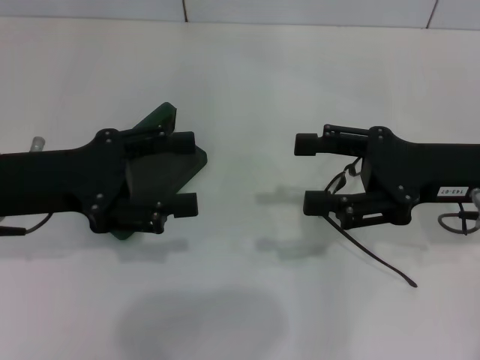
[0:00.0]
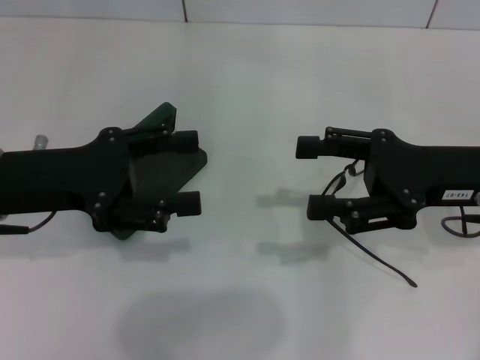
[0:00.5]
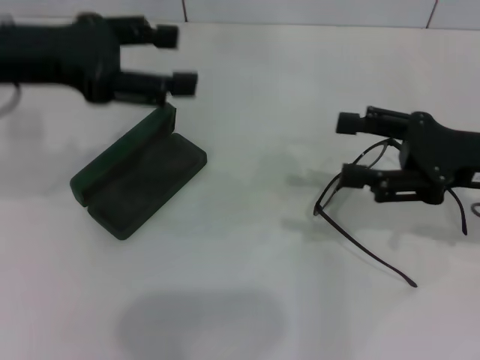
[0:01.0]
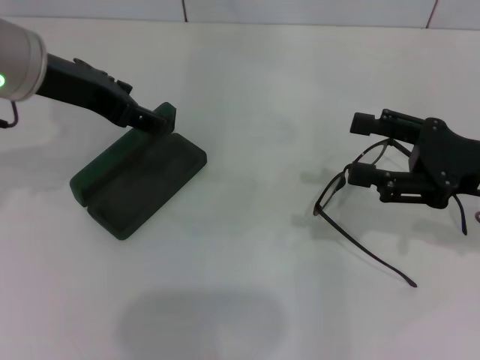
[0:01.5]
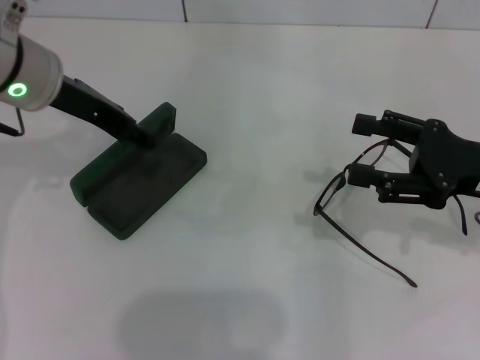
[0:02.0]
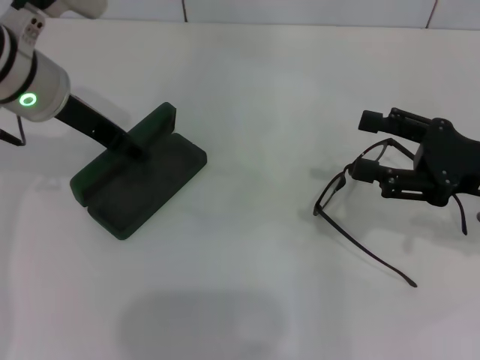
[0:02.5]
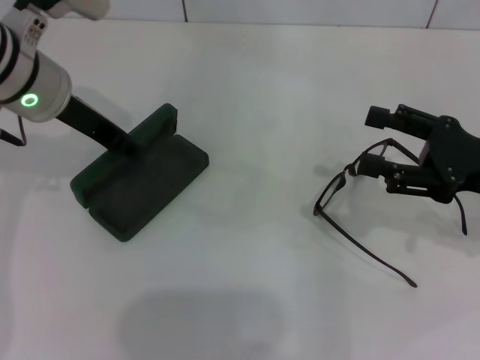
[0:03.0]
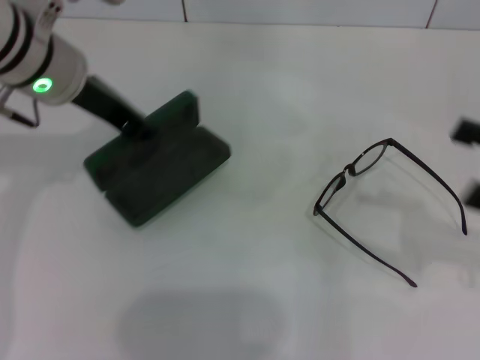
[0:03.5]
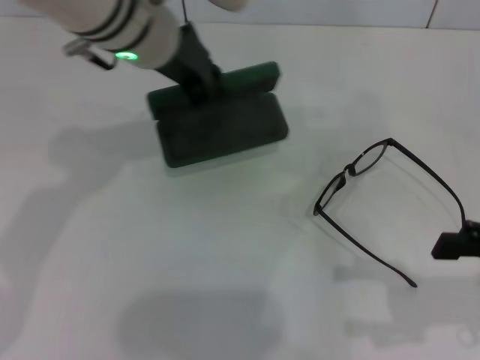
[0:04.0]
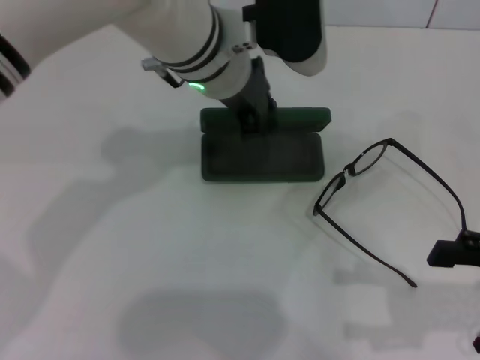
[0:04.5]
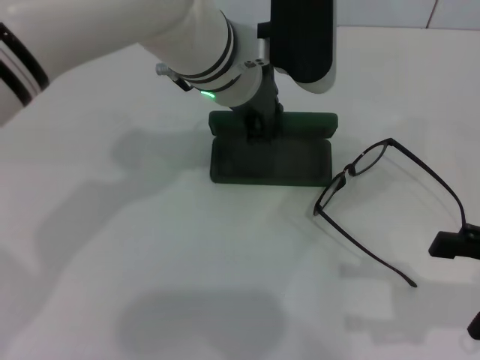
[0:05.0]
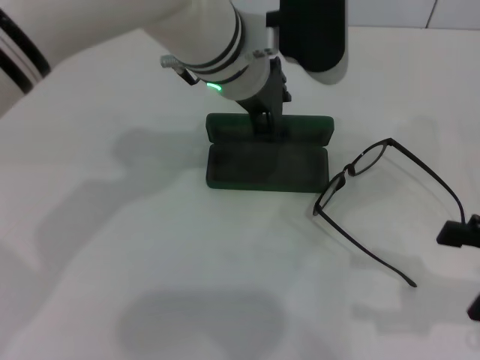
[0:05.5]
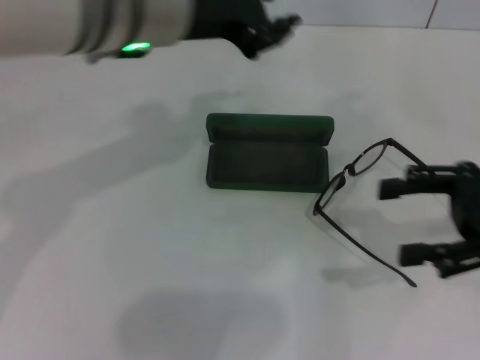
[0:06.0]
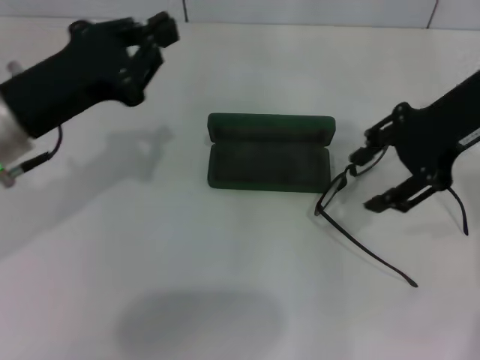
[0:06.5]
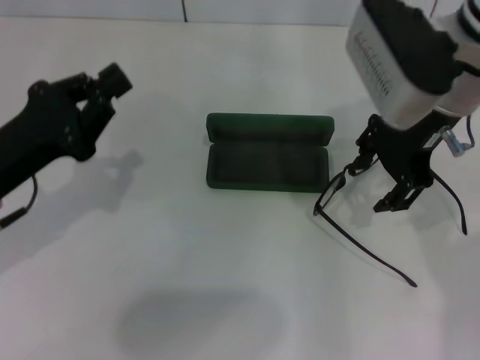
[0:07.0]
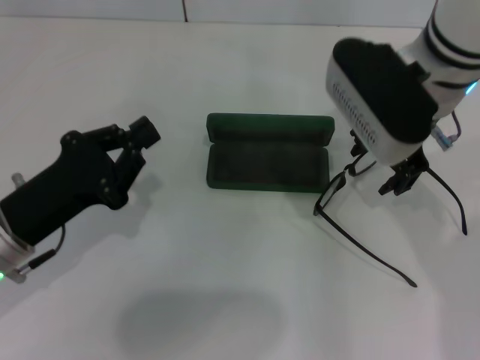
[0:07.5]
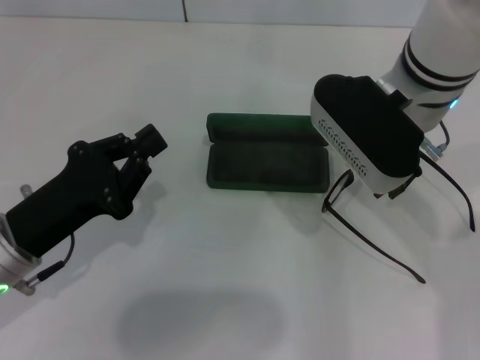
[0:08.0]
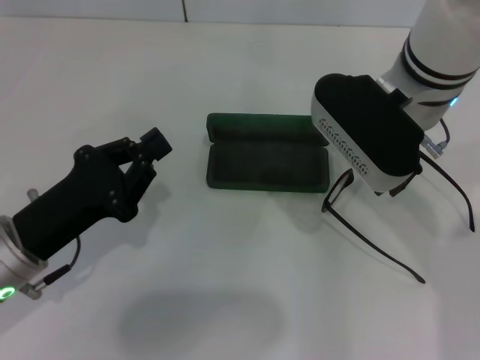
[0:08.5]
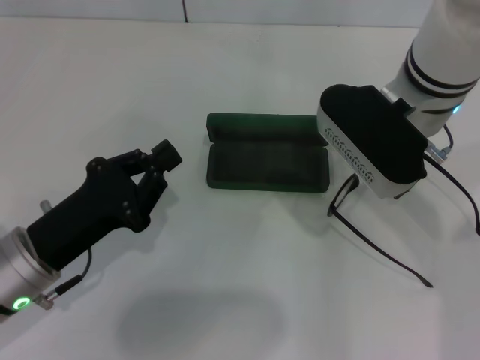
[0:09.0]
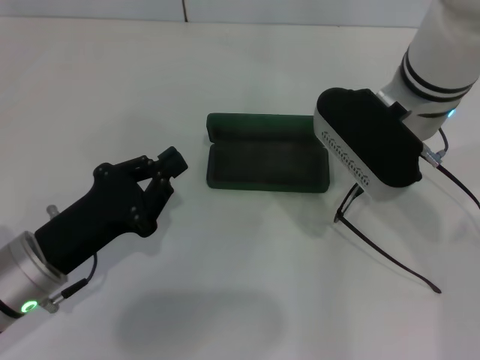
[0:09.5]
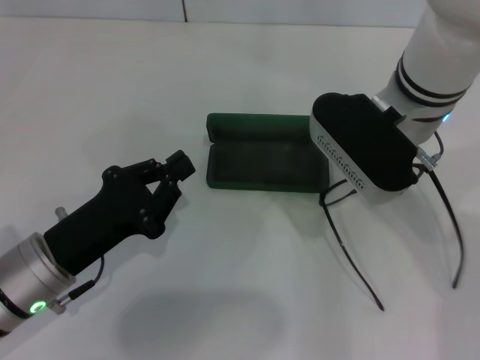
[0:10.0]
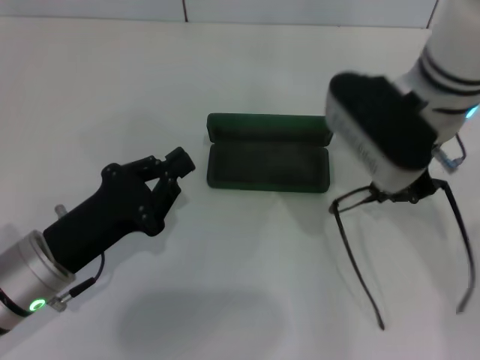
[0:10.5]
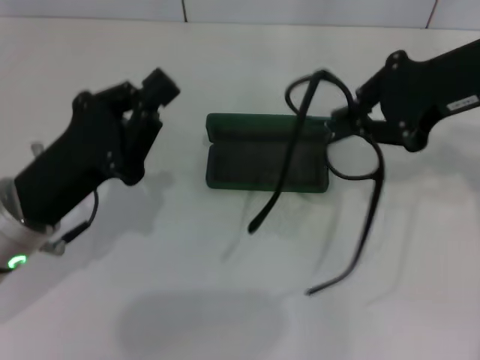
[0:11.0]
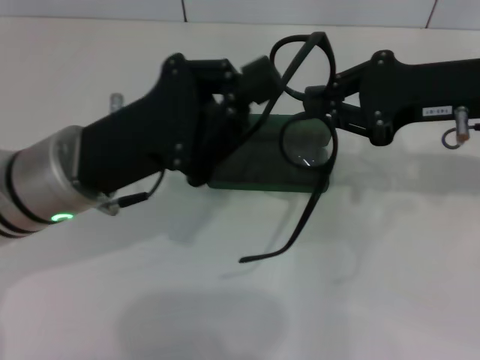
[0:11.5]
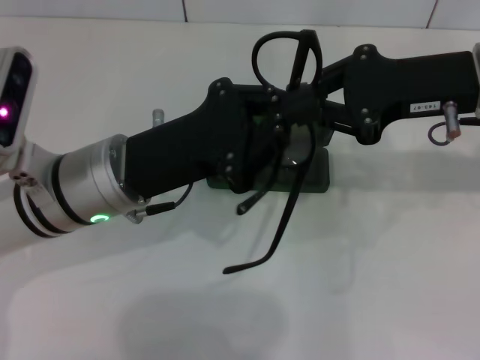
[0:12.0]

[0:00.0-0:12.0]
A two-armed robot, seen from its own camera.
Step, 0:00.0 to 0:03.0: Grab the glasses case with your left hand.
Step, 0:03.5 to 0:05.5: Place the glasses case in the center of the table with your left hand.
Step, 0:06.0 to 0:10.0: Grab the eyeglass frame with your right hand.
0:00.0 to 0:02.0: The right gripper shifts by about 5 cm. The left gripper moves forward, upward and to the right, about 10 cm.
0:02.0 to 0:04.0: The right gripper heads backward, covering some 10 cm, while the left gripper goes roughly 10 cm to the right, and closes.
0:04.0 to 0:06.0: The right gripper goes some 5 cm forward, while the left gripper moves approximately 5 cm to the right and comes back.
0:06.0 to 0:08.0: The left gripper heads downward, to the left and backward, covering some 25 cm, and closes. Meanwhile the right gripper shifts some 20 cm to the left.
0:08.0 to 0:10.0: The right gripper closes its fingers.
0:10.0 to 0:12.0: The right gripper shifts some 10 cm to the right. The left gripper goes about 10 cm upward, to the right and forward.

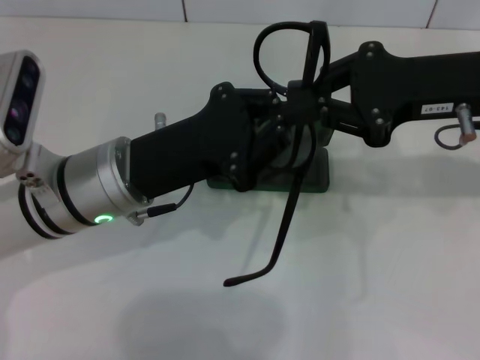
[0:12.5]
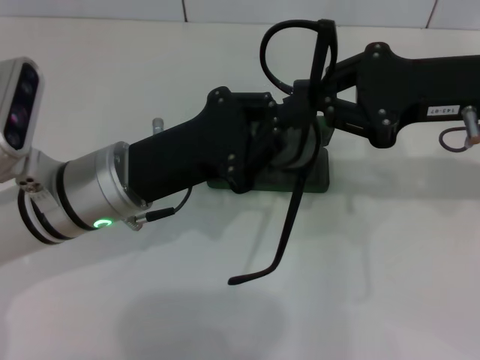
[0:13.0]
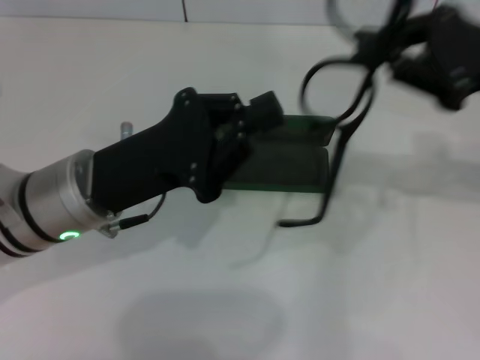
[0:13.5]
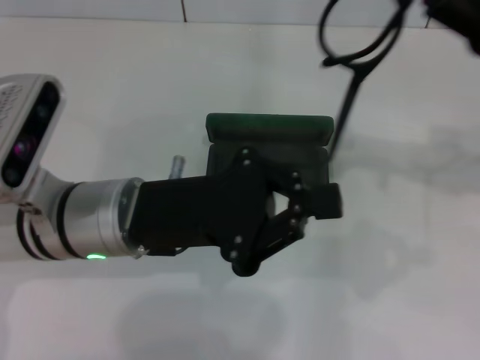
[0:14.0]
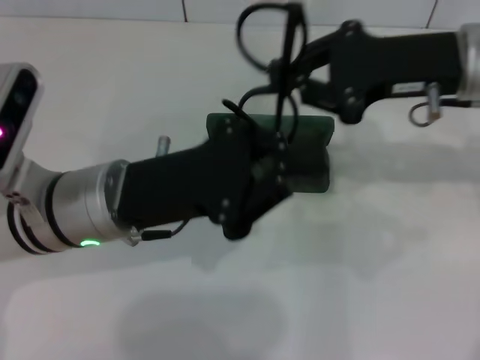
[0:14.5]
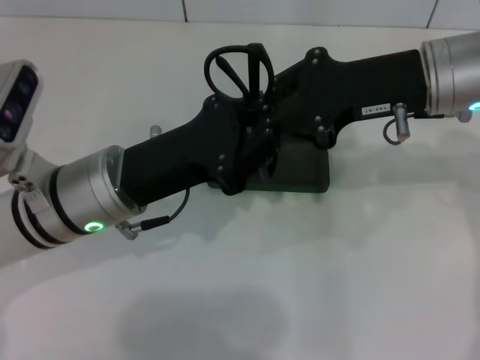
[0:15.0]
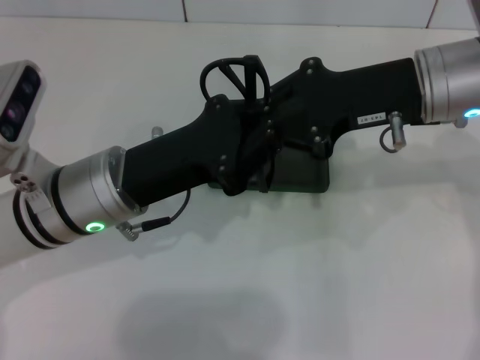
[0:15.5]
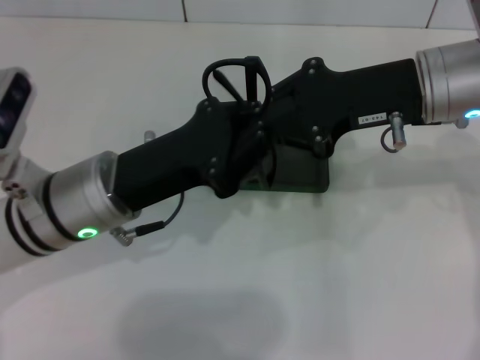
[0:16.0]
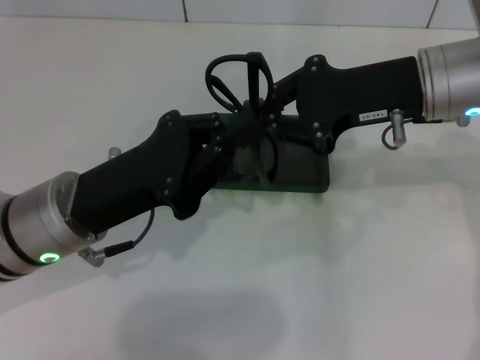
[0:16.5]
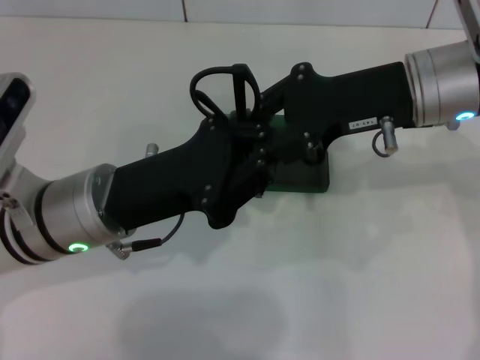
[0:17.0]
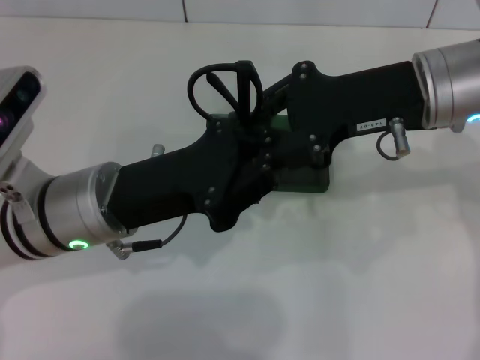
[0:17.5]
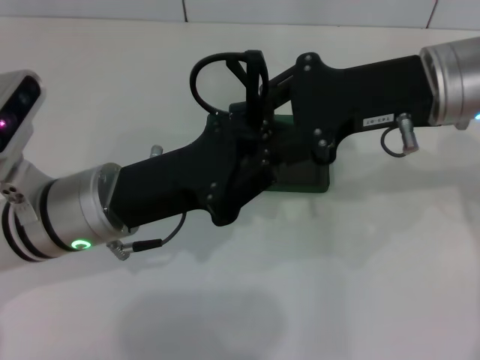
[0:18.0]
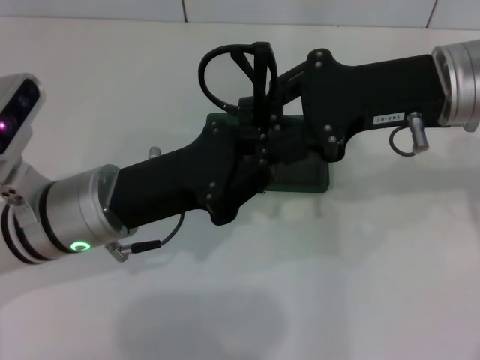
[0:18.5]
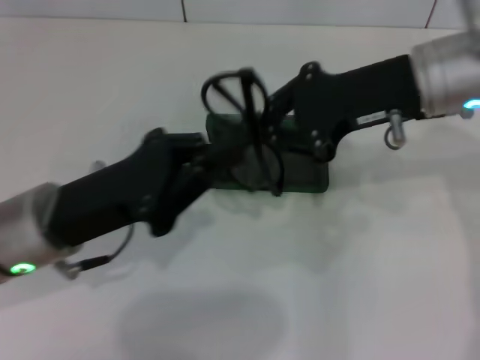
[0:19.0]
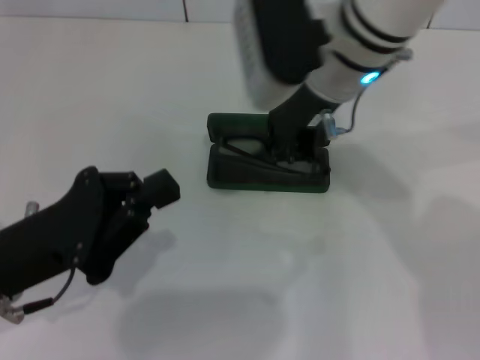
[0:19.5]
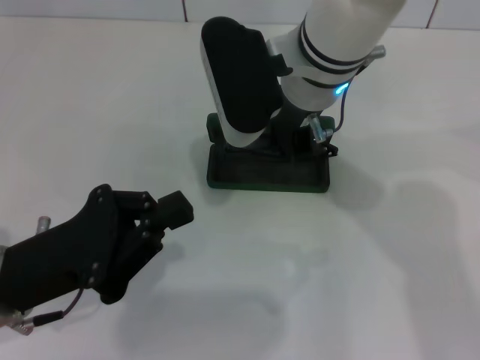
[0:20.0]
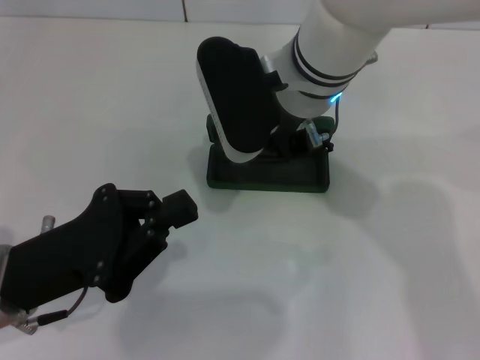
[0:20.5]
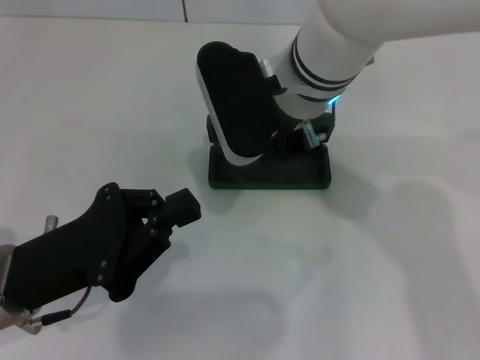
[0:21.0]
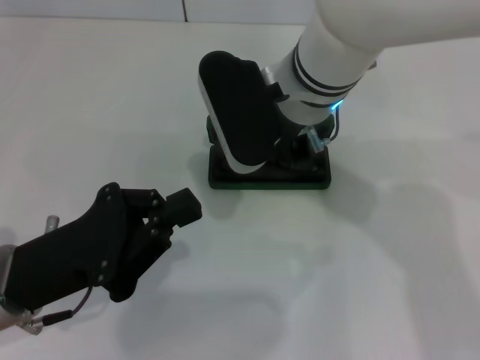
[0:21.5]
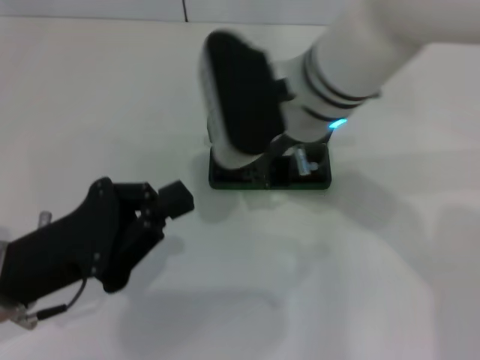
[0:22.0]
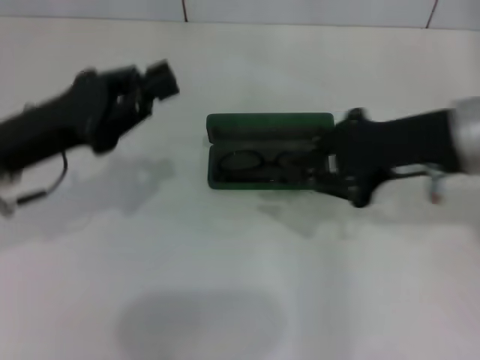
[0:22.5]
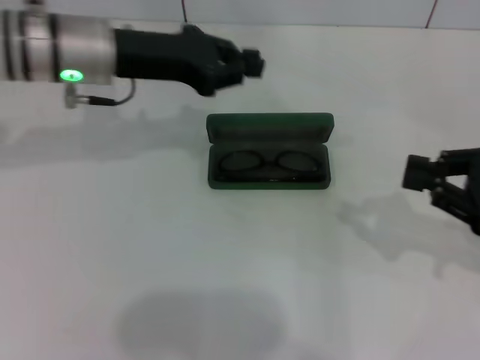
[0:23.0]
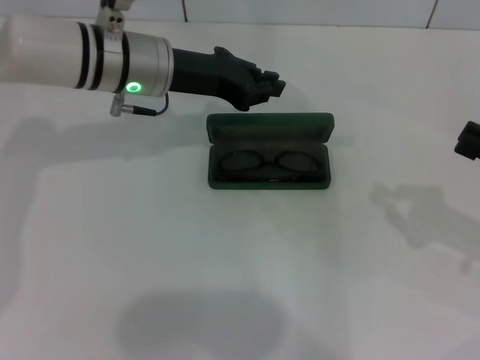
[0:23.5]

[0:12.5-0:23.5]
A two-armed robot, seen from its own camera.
Step, 0:12.5 to 0:18.5: Fold the frame with your left hand.
Step, 0:19.0 to 0:21.5: Put the glasses into the case with your right hand.
0:12.5 to 0:14.5: The right gripper travels to the right and back again, about 5 cm each way.
0:16.0 to 0:18.0: There are only small adjustments of the grippers.
0:18.0 to 0:20.0: The right gripper moves to the left, about 15 cm, while the left gripper travels to the left and backward by roughly 10 cm.
0:20.0 to 0:21.5: There are only small adjustments of the grippers.
0:21.5 to 0:23.5: The right gripper moves to the right, approximately 30 cm; the left gripper moves forward, approximately 20 cm.

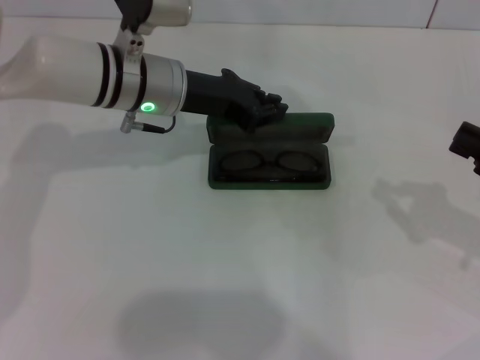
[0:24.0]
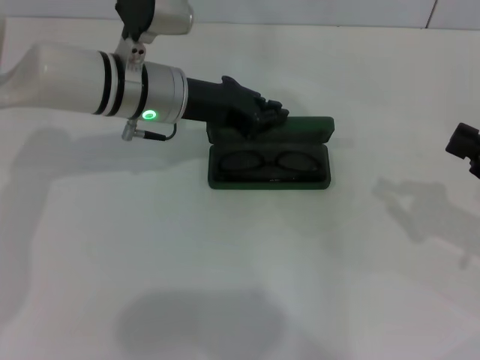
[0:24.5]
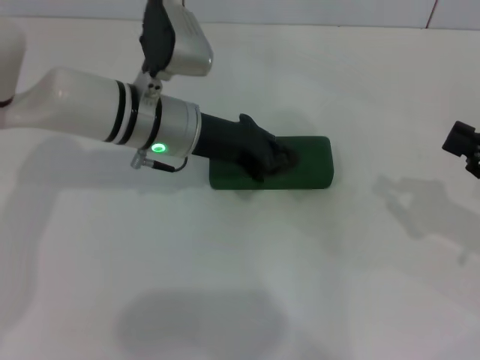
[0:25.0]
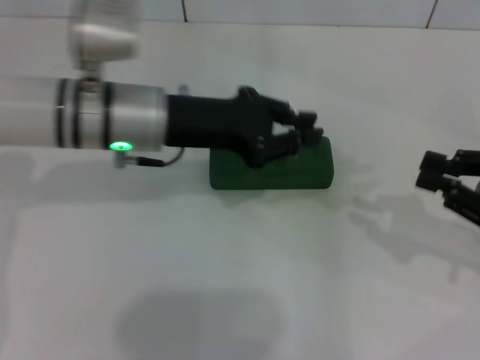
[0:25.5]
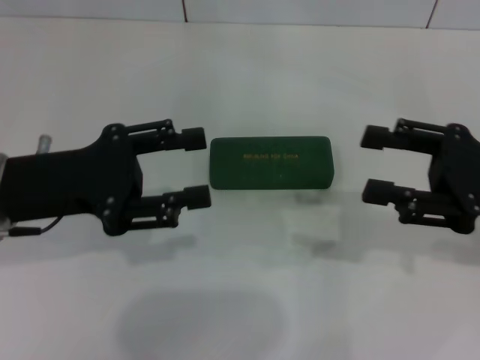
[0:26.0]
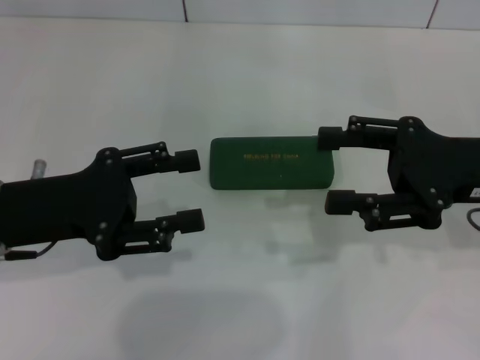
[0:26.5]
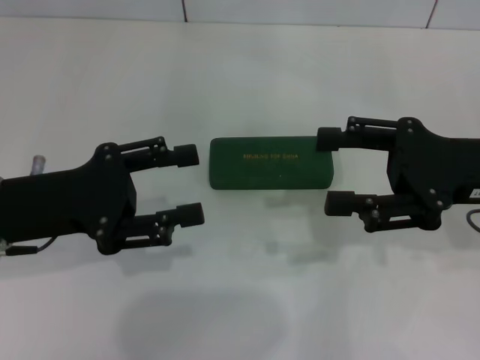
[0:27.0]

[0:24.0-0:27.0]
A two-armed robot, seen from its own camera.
0:24.0 to 0:25.5: The left gripper is displaced backward by some 5 cm.
0:25.5 to 0:27.0: The right gripper heads to the left, covering some 10 cm, and opens up. Meanwhile the left gripper heads to the left and backward, covering approximately 15 cm, and opens.
